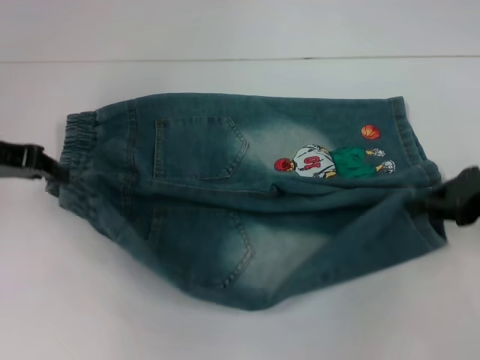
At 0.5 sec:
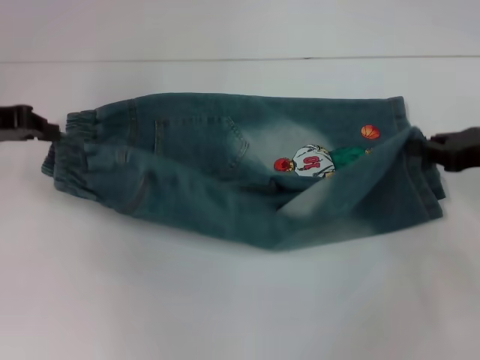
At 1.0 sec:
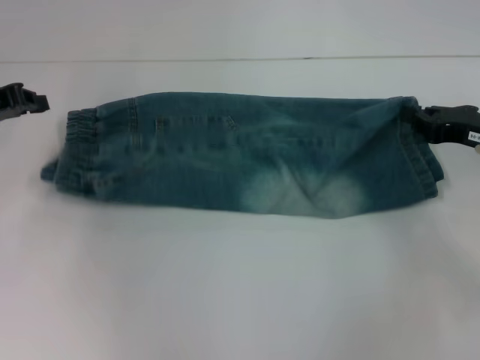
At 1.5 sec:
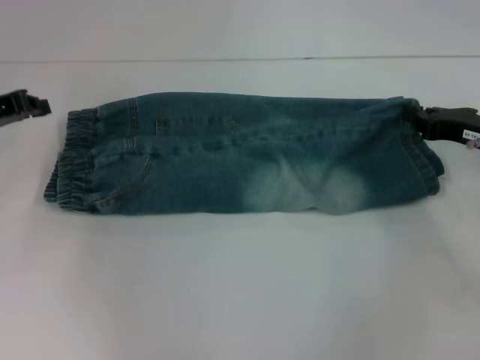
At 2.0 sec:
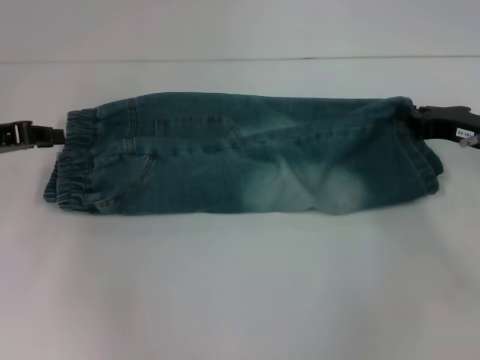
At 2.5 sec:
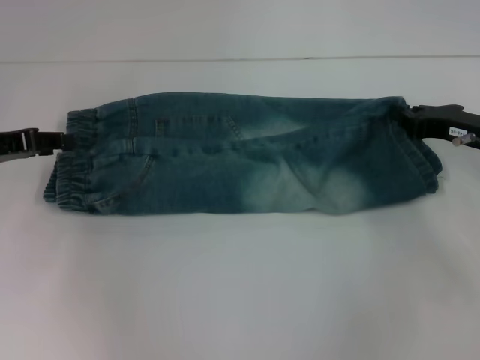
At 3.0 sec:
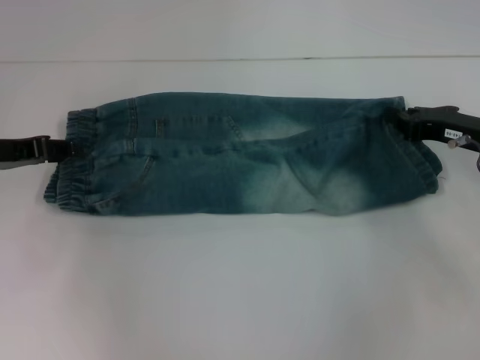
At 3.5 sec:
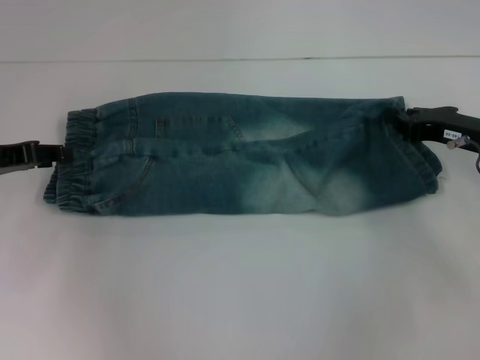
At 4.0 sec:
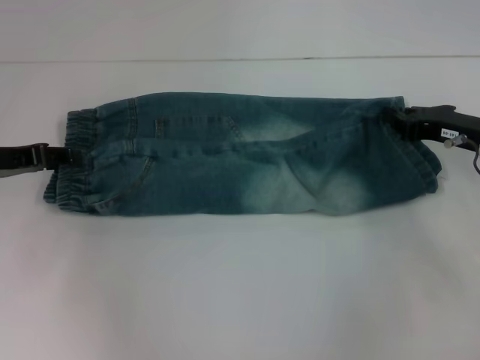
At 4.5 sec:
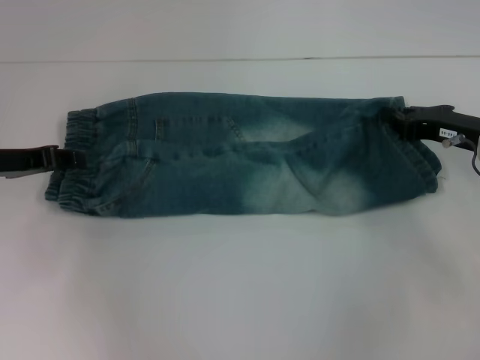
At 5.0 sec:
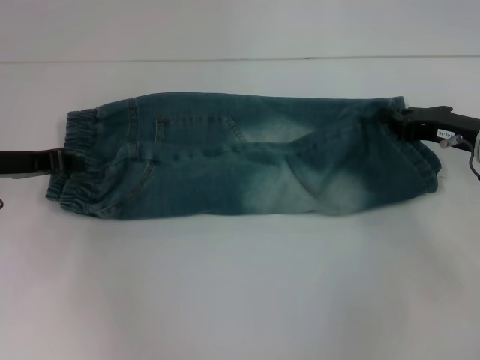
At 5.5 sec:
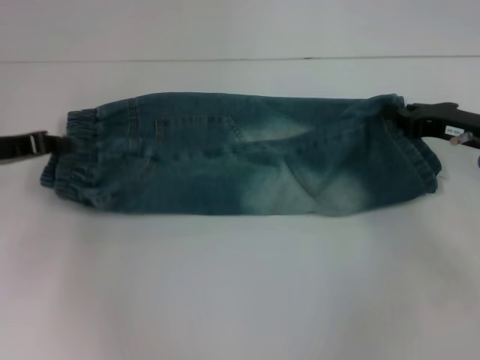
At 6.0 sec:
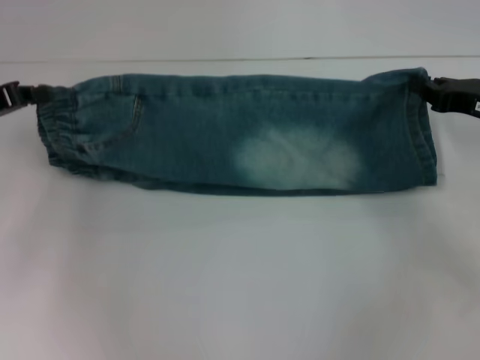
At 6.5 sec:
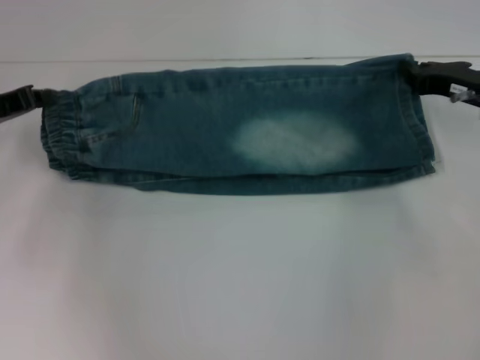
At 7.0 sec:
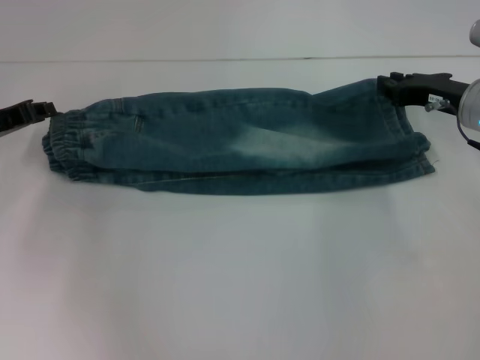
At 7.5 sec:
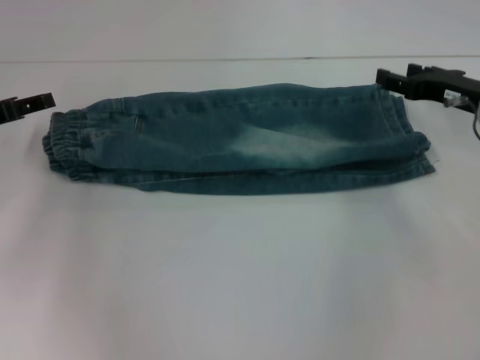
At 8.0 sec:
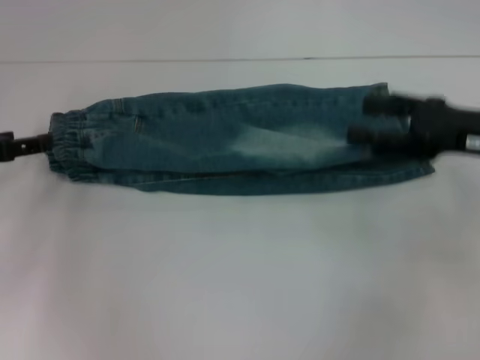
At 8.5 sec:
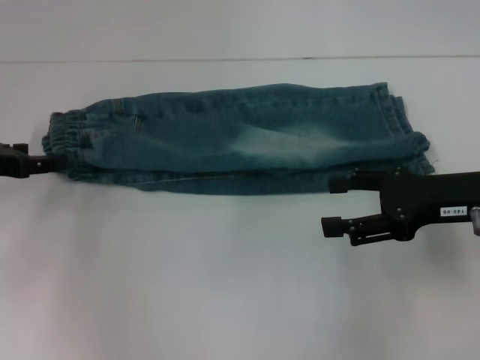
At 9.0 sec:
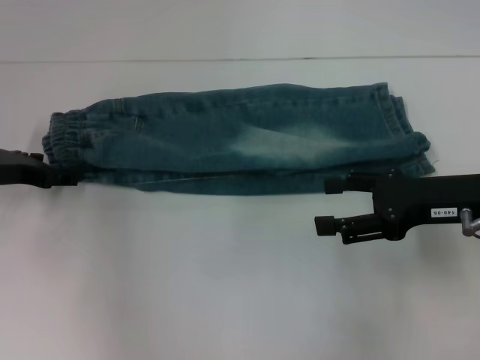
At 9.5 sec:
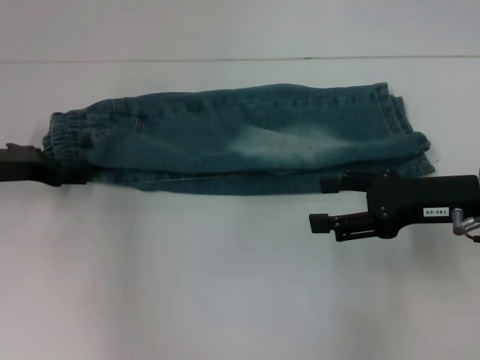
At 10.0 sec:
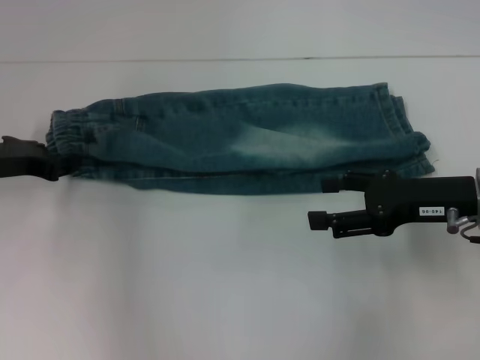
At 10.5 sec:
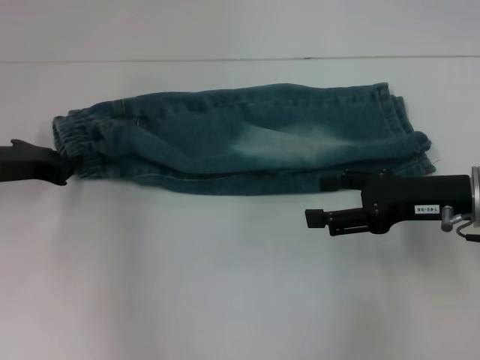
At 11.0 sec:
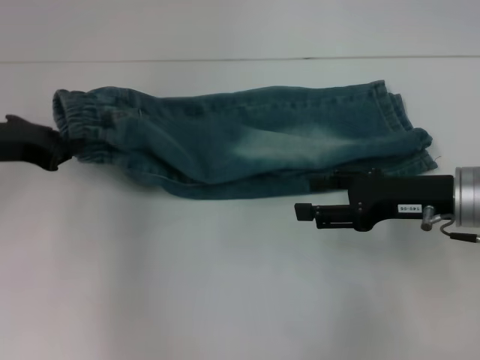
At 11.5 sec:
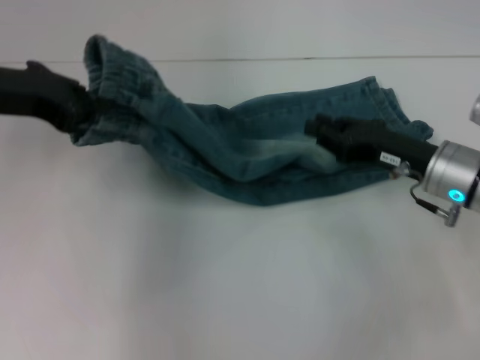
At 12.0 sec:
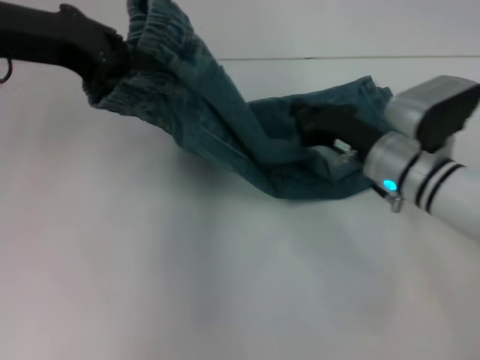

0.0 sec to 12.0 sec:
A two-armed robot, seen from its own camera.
Step, 0.0 sec to 5.0 sec: Hold the lower left waistband with your left hand.
Step, 5.5 sec to 7.0 sec: Fold upward with your right hand.
Step, 7.5 sec to 10.5 sec: Hold the waistband with your left hand.
0.0 sec to 2.0 sec: The right gripper travels downward by approximately 5 cm.
2.0 sec to 4.0 sec: The left gripper opens up.
4.0 sec to 6.0 sec: The left gripper closes.
6.0 sec to 8.0 sec: The right gripper shifts by approximately 5 cm, and opens up. Meanwhile the left gripper opens.
8.0 sec to 10.0 sec: The right gripper ends up about 5 cm from where it was. Meanwhile the left gripper is displaced to the right by some 5 cm.
10.0 sec to 12.0 sec: The right gripper goes about 10 cm to the left and downward, and closes its fingers. The left gripper heads upward, covering about 15 cm, and closes.

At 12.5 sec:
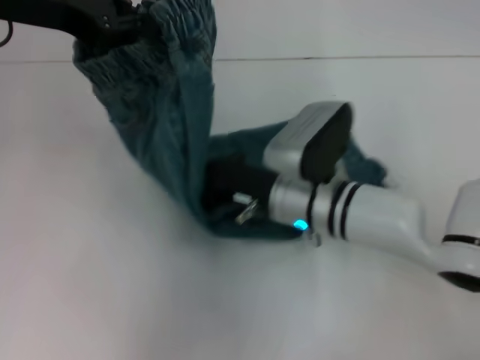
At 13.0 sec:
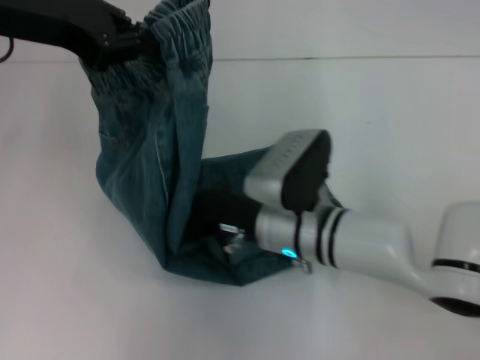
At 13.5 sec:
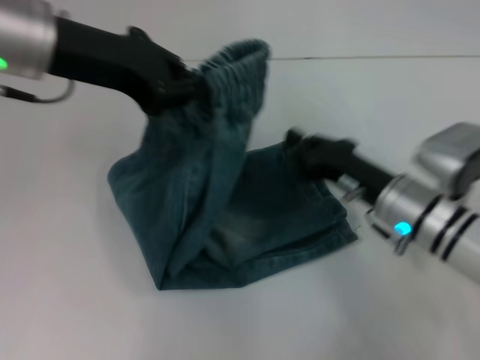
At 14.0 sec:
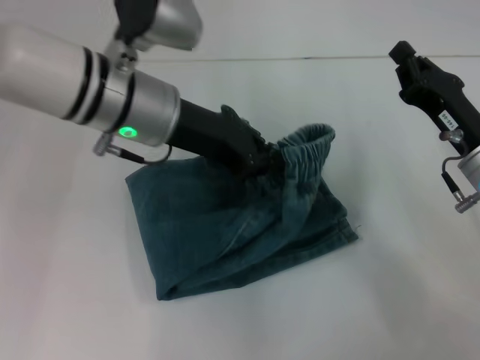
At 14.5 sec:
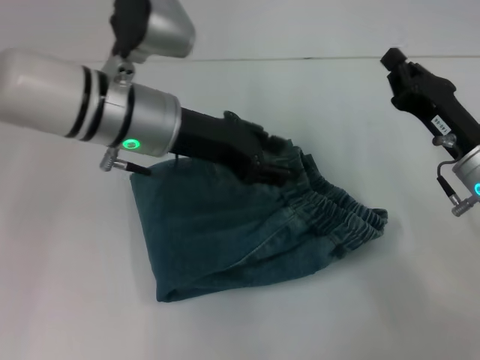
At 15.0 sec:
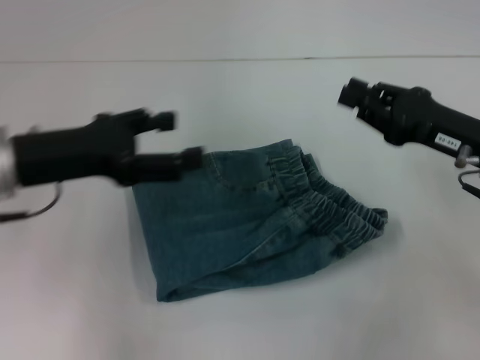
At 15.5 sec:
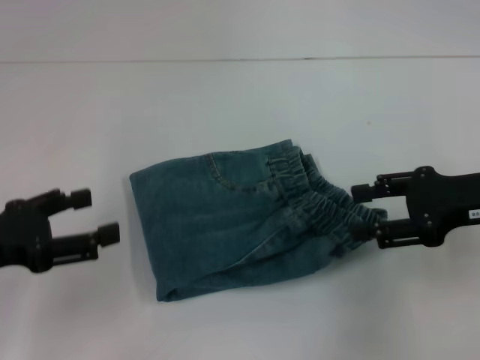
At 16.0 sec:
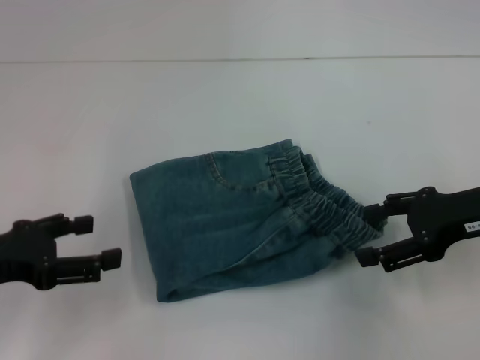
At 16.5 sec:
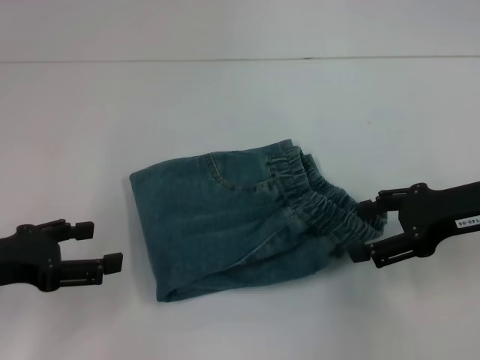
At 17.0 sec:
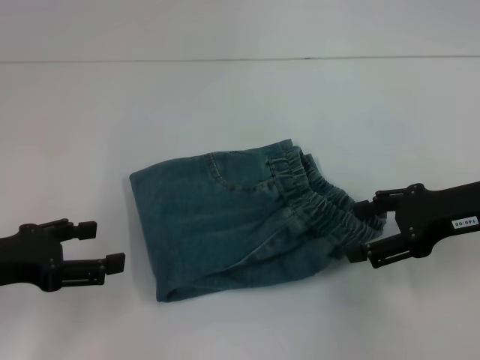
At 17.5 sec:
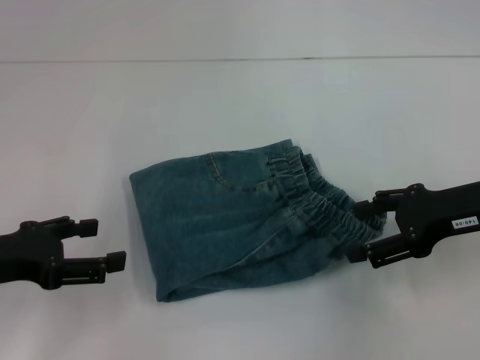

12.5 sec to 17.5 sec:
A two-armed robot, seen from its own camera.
Step, 13.5 sec to 14.5 sec: Fold to the right with your left hand.
12.5 sec to 15.0 sec: The left gripper heads downward and backward, covering roughly 15 cm, and opens. The right gripper heads to the right, covering approximately 20 cm.
15.0 sec to 17.5 sec: The left gripper travels to the left and backward by approximately 10 cm; the right gripper opens.

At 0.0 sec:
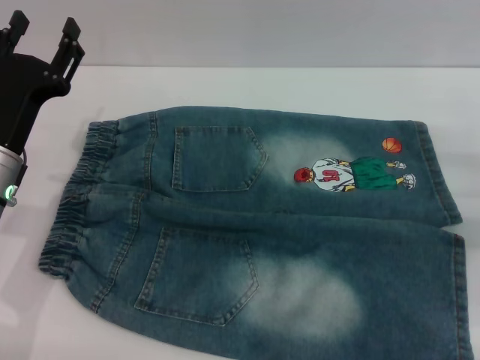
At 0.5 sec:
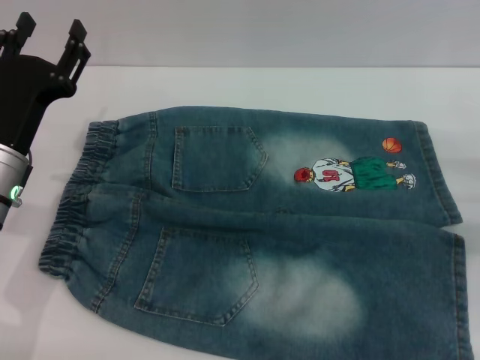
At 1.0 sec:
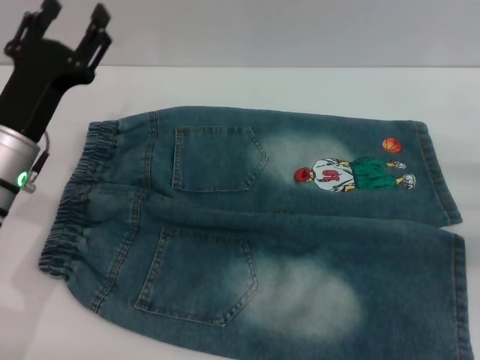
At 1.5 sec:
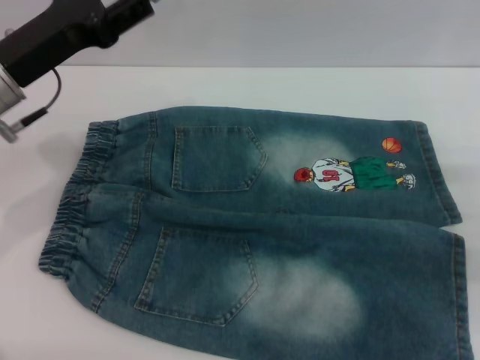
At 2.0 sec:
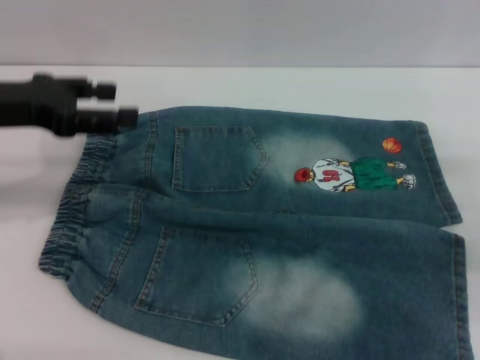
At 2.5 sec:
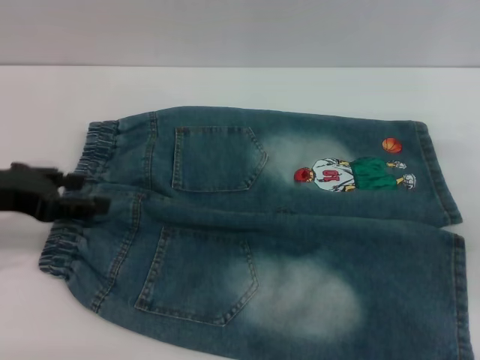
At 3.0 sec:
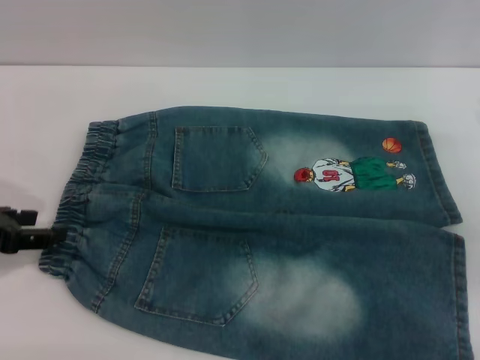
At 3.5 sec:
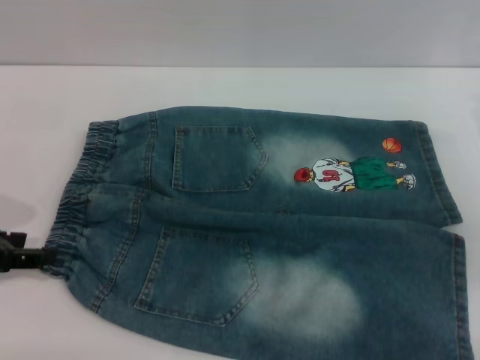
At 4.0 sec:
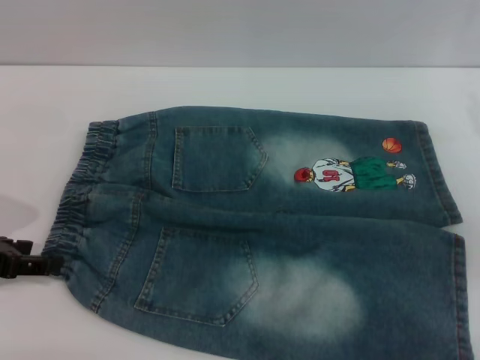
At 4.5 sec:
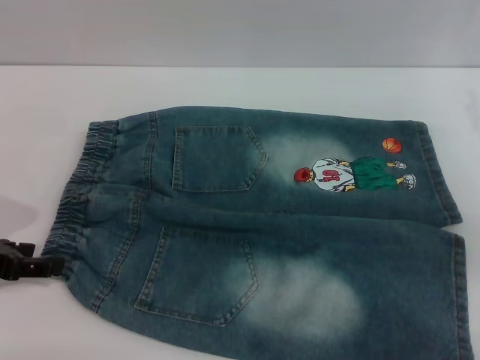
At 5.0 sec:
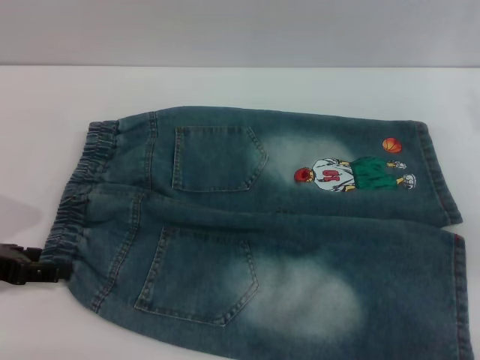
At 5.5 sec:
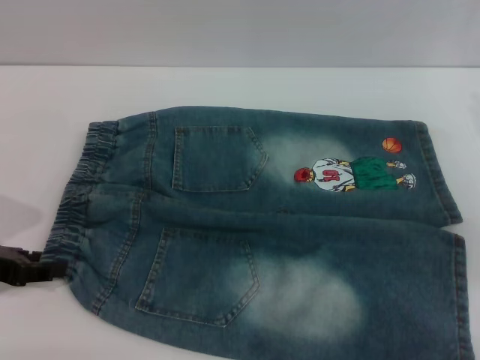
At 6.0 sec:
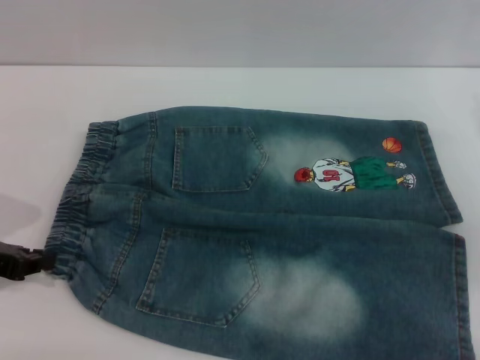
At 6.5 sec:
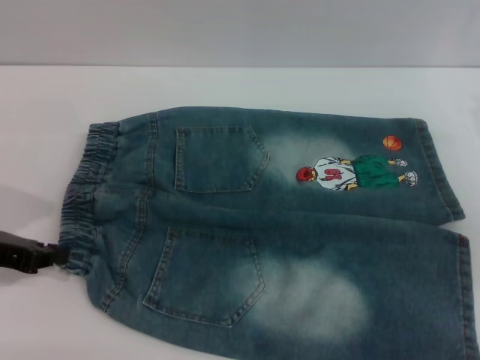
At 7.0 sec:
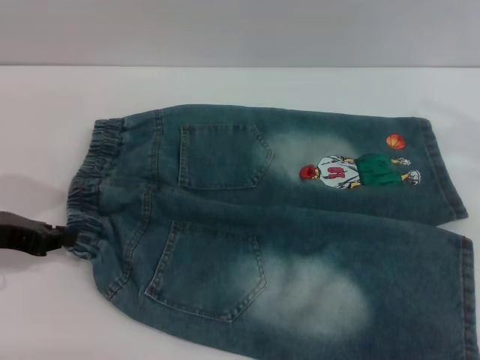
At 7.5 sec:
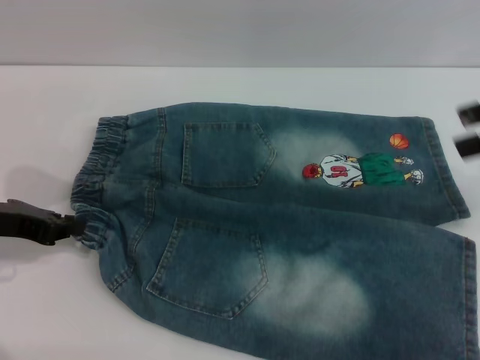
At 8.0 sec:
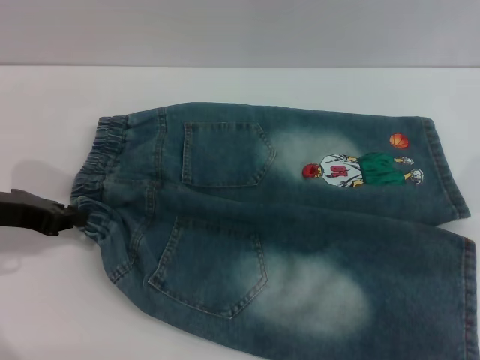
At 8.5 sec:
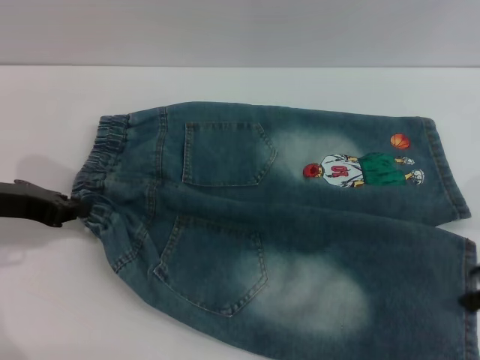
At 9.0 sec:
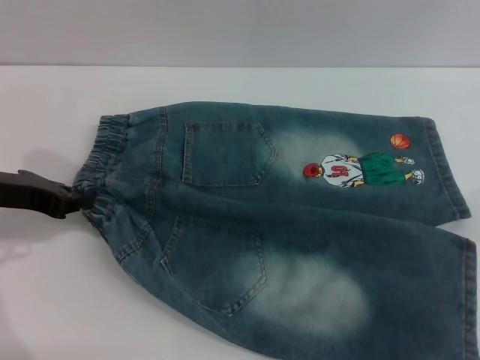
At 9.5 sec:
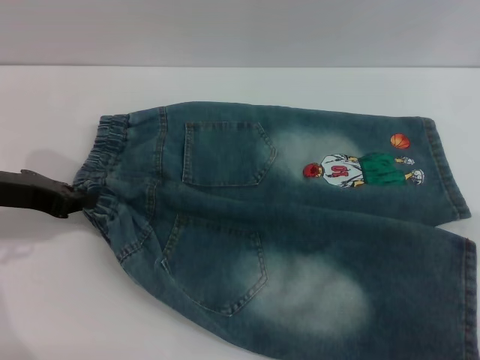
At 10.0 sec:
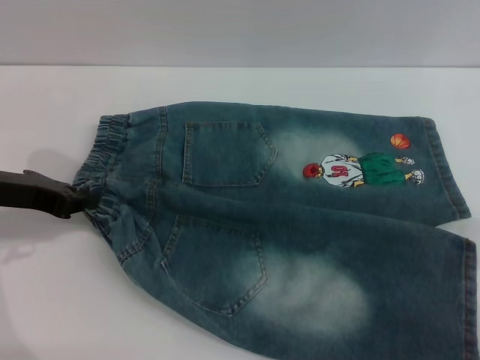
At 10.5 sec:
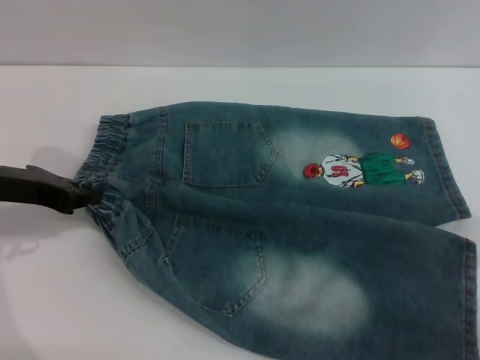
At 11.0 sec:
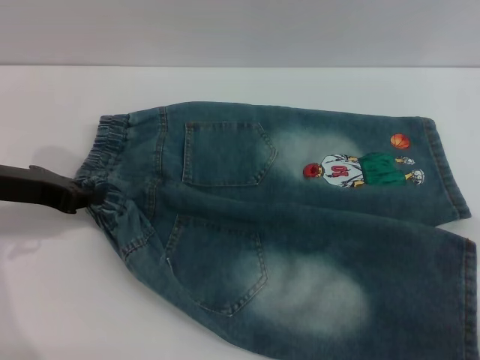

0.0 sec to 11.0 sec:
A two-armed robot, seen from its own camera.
0.0 sec to 2.0 sec: The left gripper shifts approximately 10 cm upward.
2.0 sec to 3.5 sec: The left gripper is displaced backward and downward by approximately 10 cm.
3.5 sec to 5.5 sec: There are only small adjustments of the grippers.
5.5 sec to 7.5 sec: The left gripper closes. Meanwhile the right gripper shifts approximately 15 cm upward.
7.5 sec to 9.0 sec: The right gripper shifts some 10 cm downward.